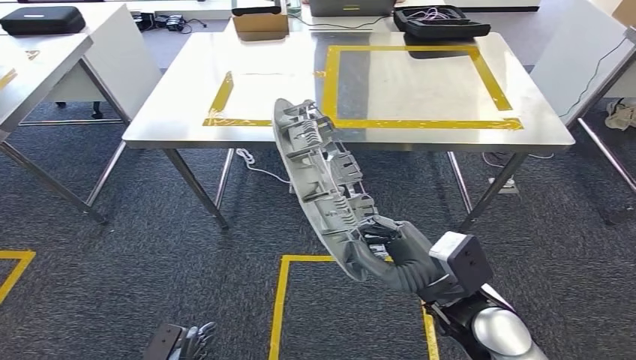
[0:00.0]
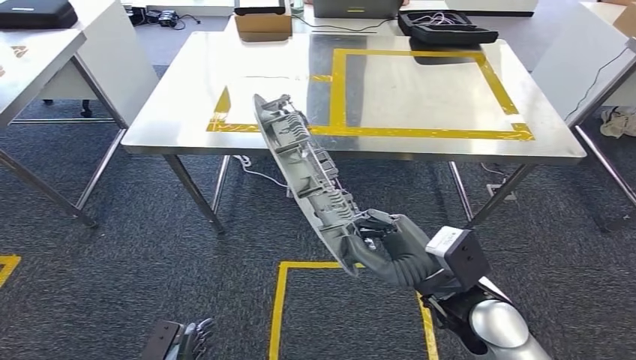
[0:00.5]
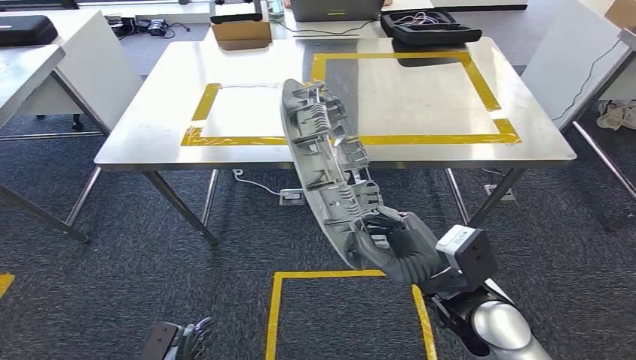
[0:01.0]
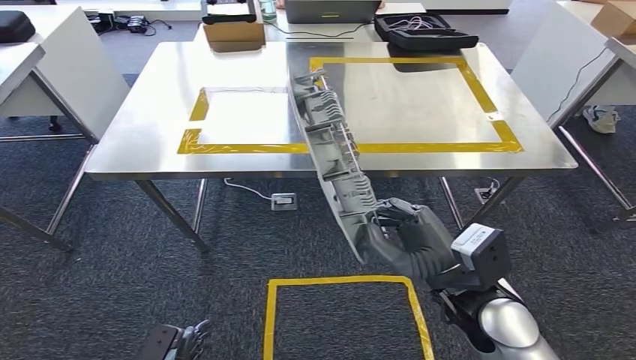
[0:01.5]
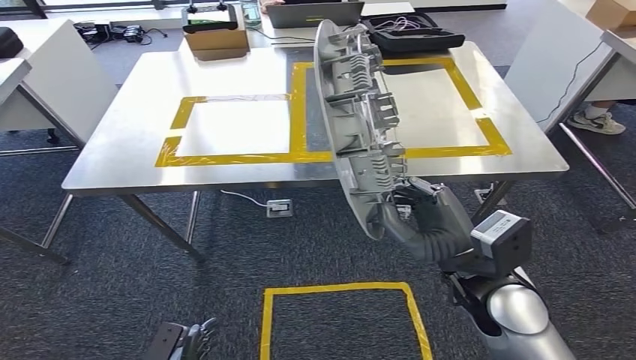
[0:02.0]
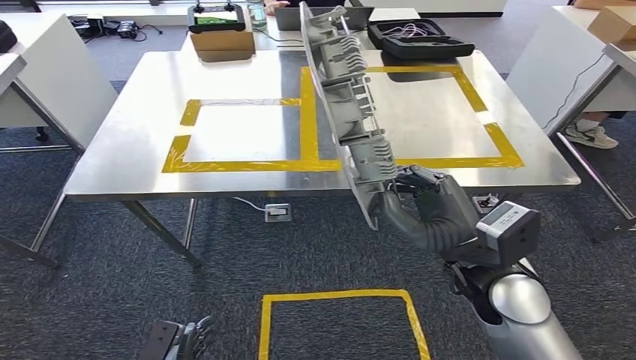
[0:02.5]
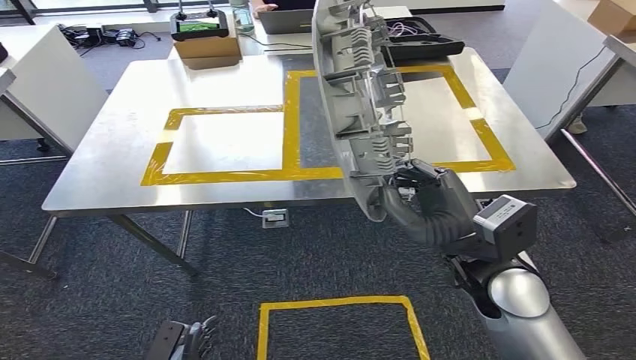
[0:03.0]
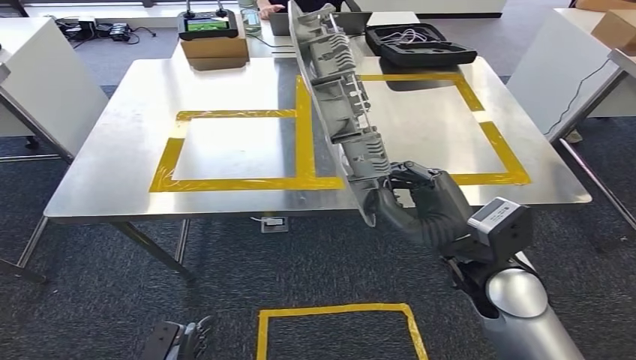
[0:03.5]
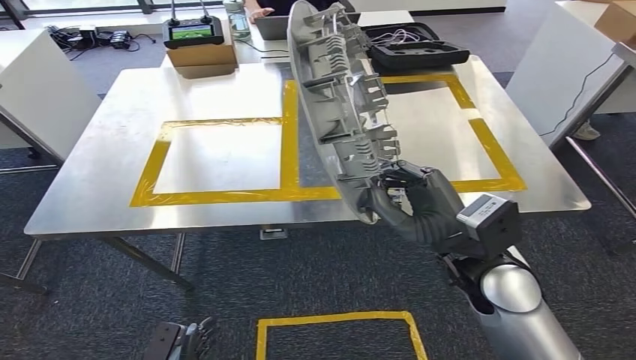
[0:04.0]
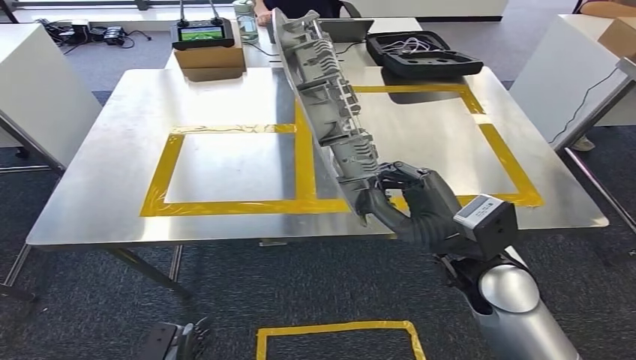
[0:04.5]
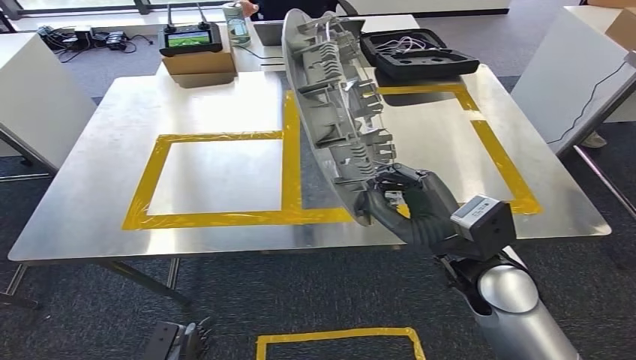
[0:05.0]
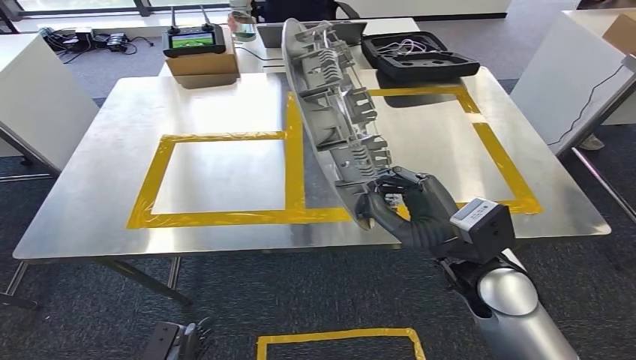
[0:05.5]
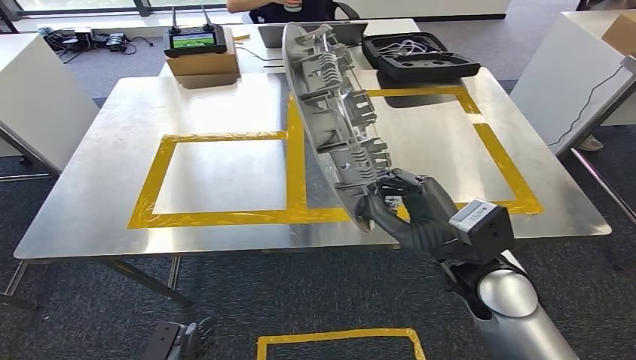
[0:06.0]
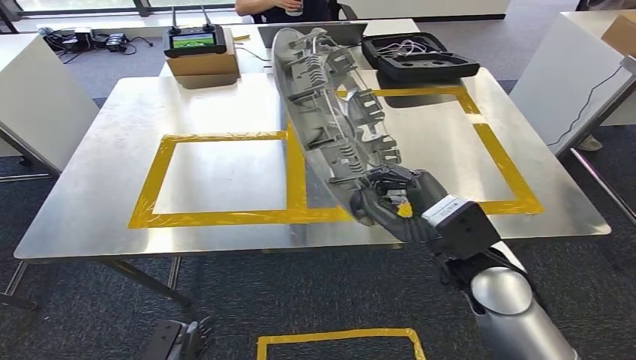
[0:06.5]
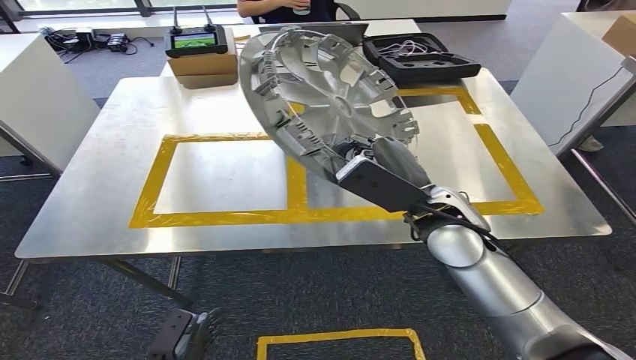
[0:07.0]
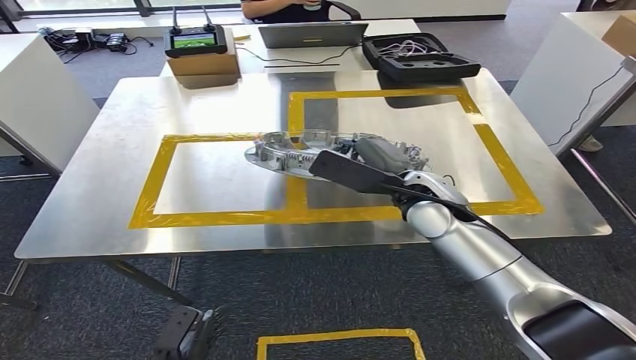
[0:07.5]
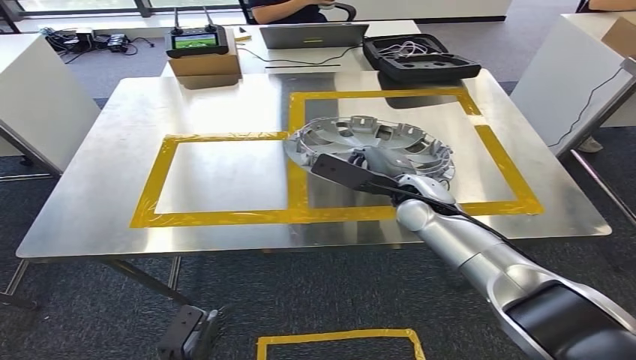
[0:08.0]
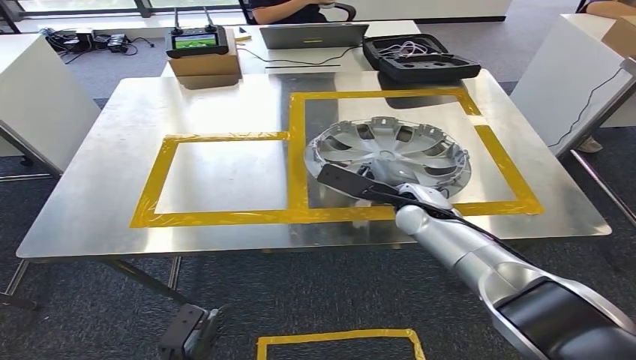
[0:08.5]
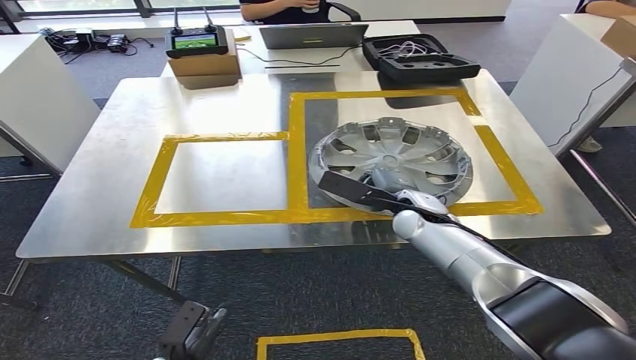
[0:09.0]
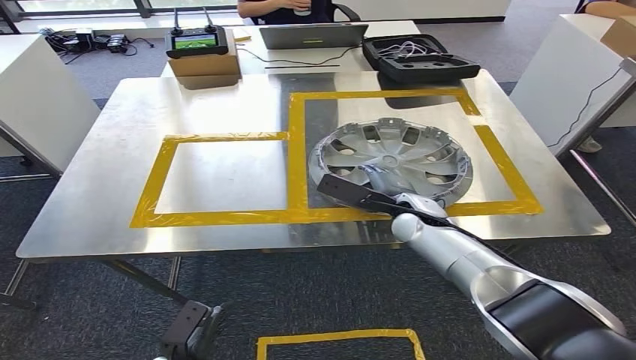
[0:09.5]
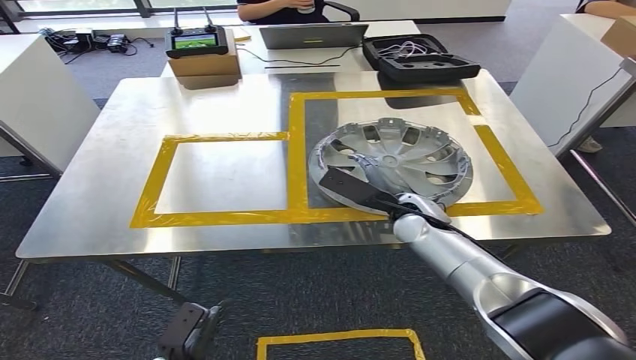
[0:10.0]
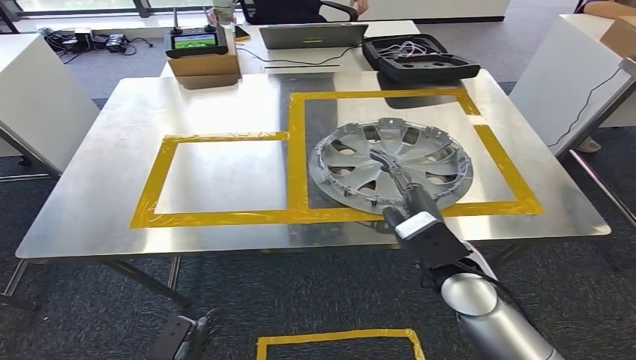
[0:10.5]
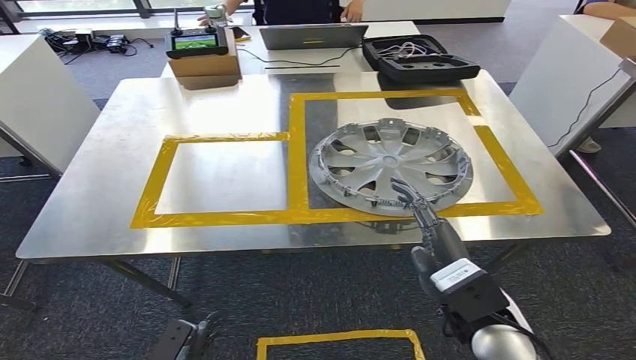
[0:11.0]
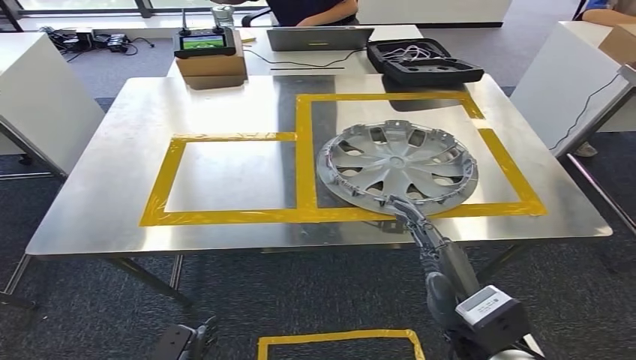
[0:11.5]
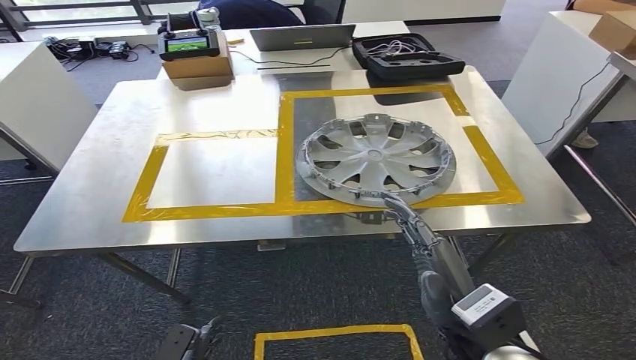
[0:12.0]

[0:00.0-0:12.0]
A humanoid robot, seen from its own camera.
Step, 0:00.0 to 0:06.5: Move the small component to the workbench.
Step, 0:07.0 to 0:11.5: Insert the small component into the corresponding slot on the workbench.
0:06.0 to 0:08.0: The right hand is displaced forward by about 15 cm.
0:08.0 to 0:10.0: The right hand shifts roughly 5 cm downward.

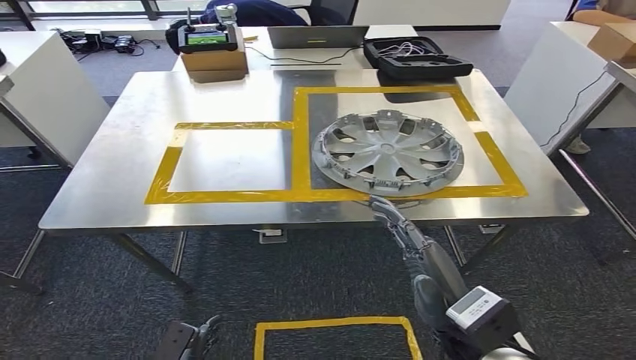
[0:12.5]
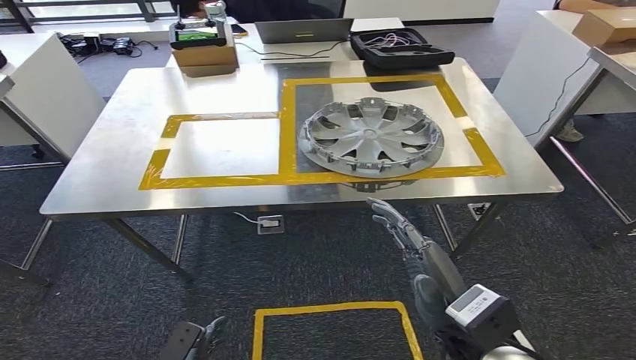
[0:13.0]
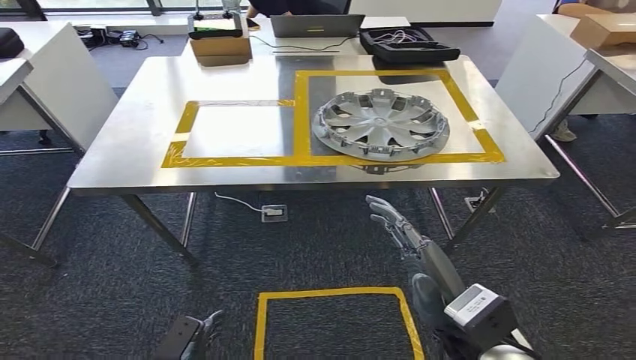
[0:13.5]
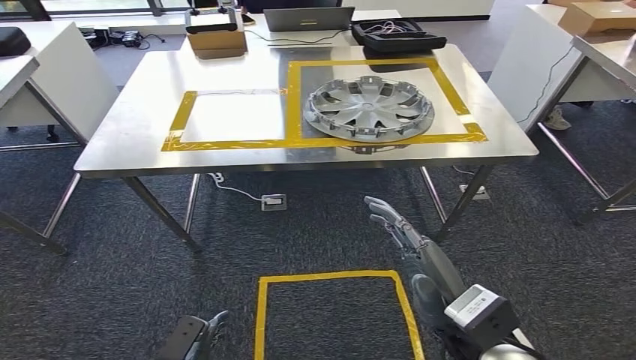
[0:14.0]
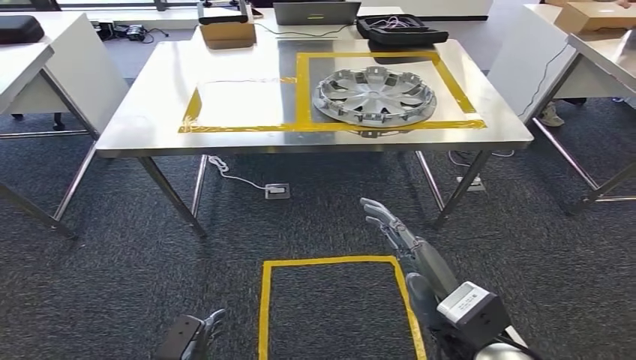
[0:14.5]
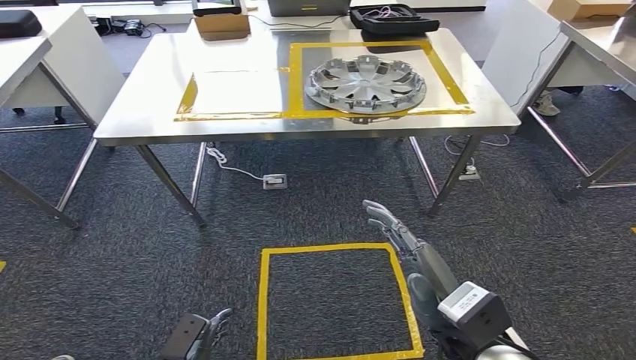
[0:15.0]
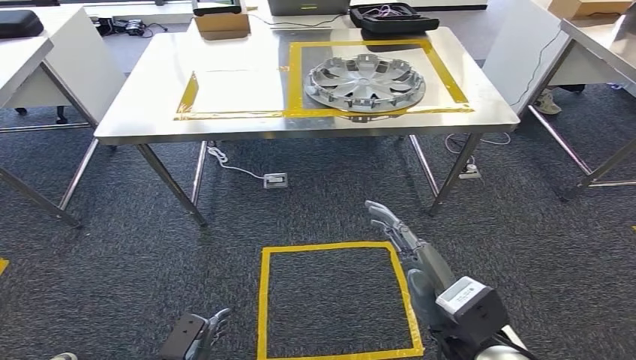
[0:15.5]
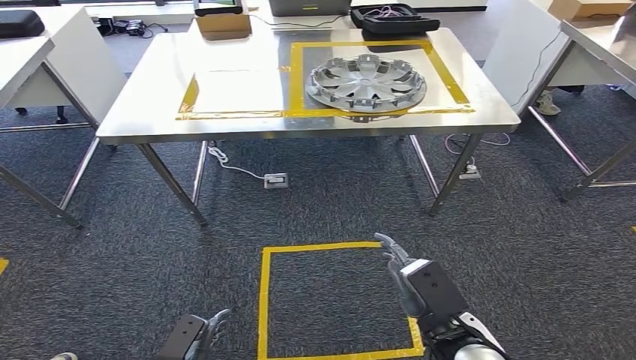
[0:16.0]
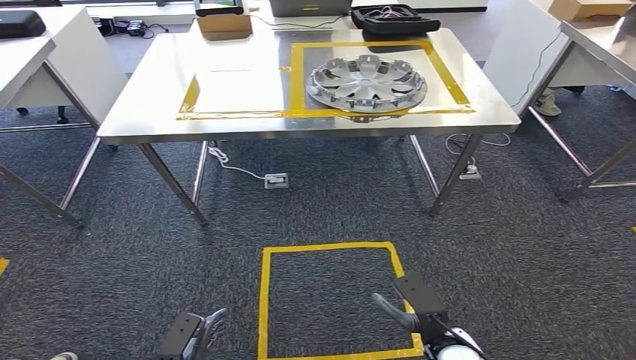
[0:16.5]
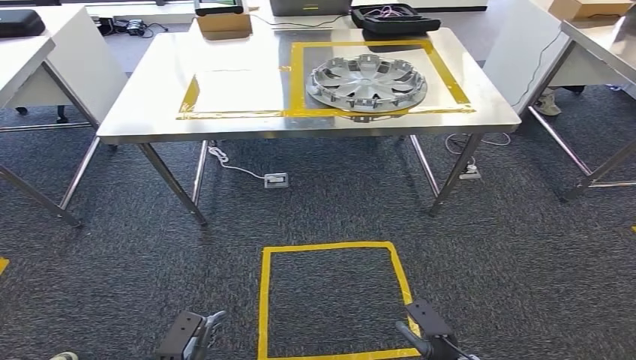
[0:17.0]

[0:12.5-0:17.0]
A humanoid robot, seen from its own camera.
Step, 0:12.5 to 0:17.0: Return to the initial position at the workbench.

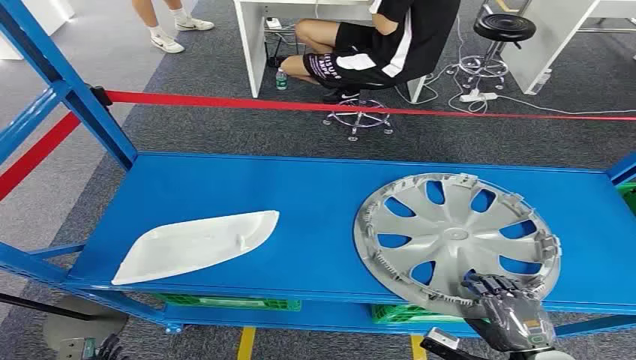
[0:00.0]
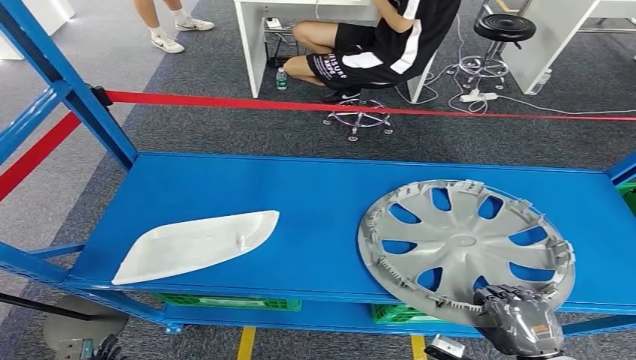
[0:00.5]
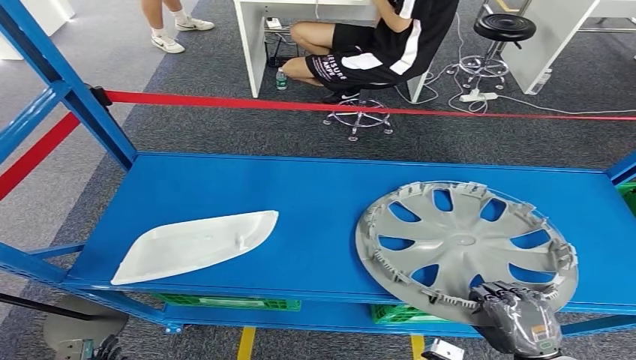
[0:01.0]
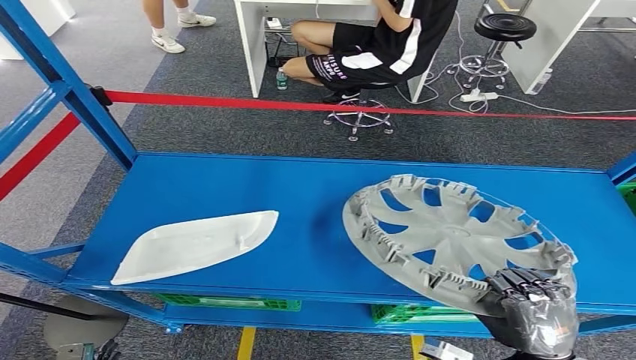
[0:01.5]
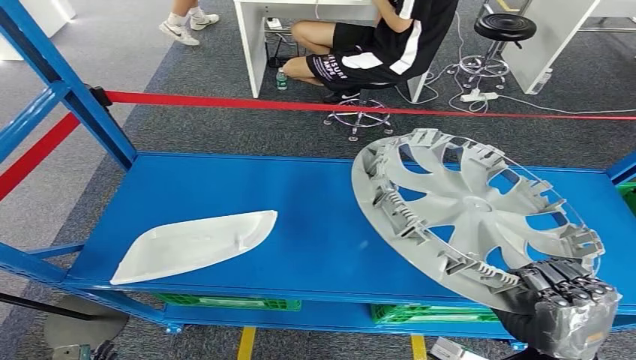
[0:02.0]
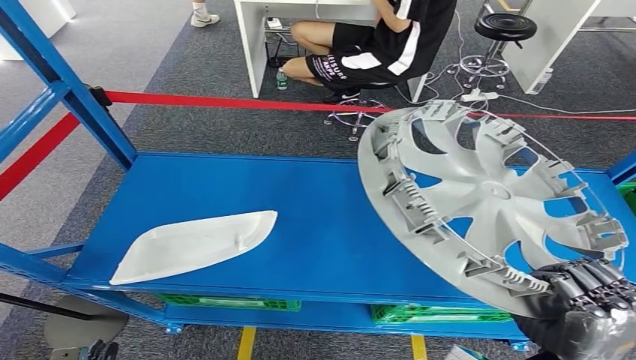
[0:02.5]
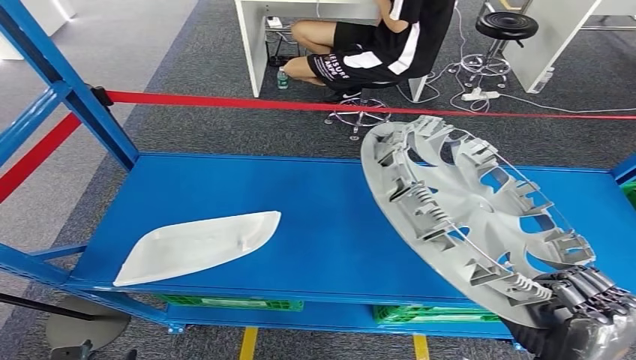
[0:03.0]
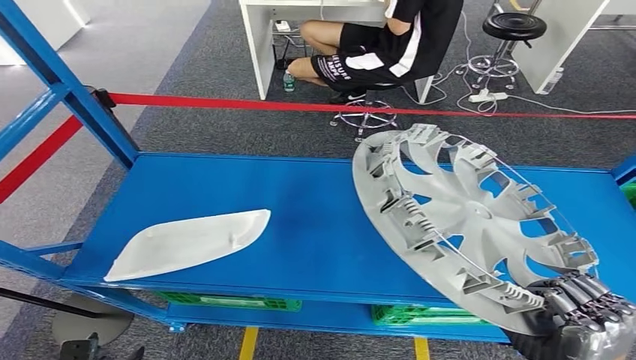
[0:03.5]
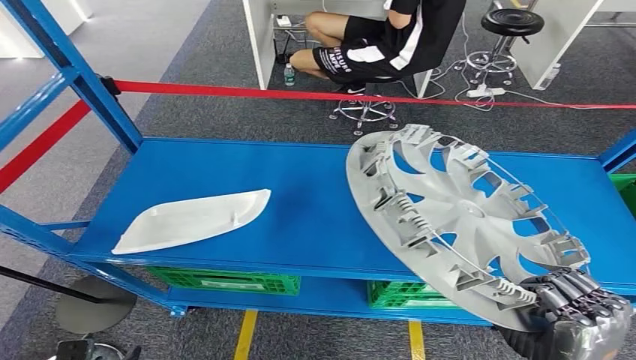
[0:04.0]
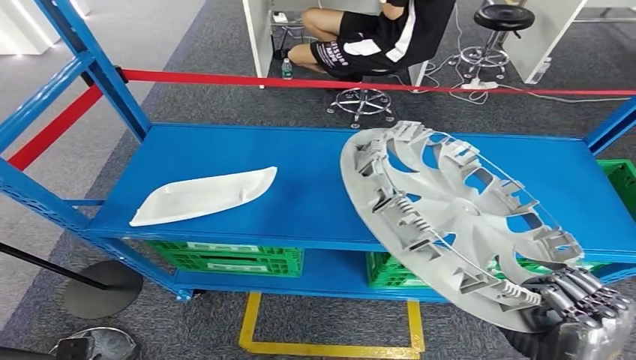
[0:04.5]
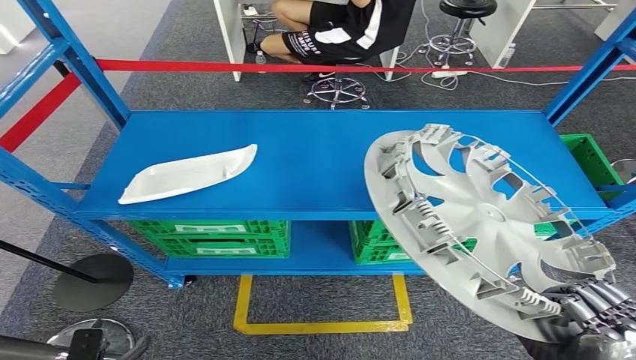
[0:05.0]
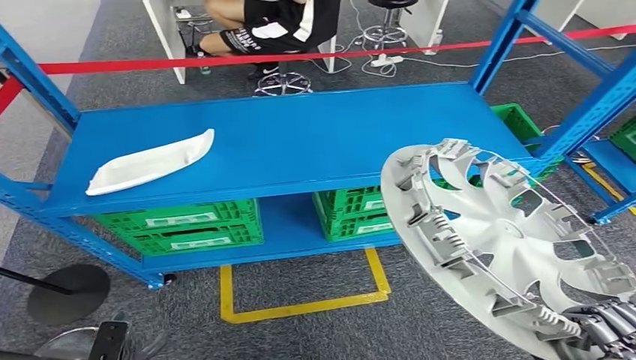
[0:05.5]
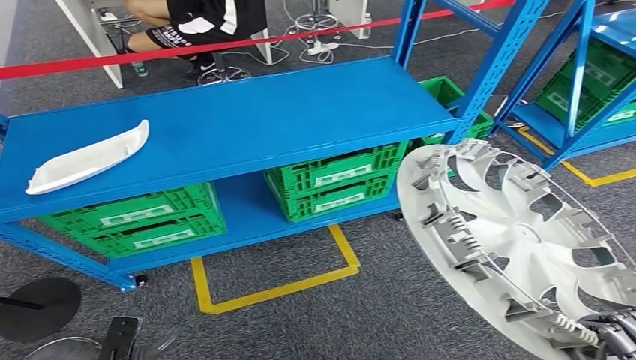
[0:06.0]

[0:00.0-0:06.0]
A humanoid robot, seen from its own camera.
Step, 0:00.0 to 0:04.5: Pick up the small component from the shelf.
